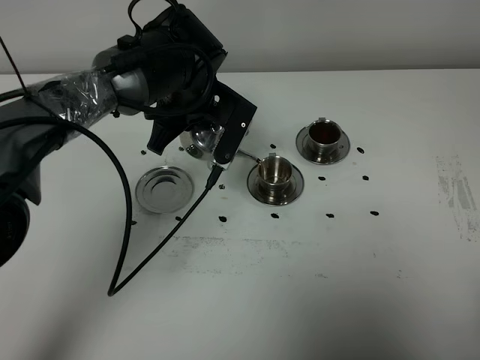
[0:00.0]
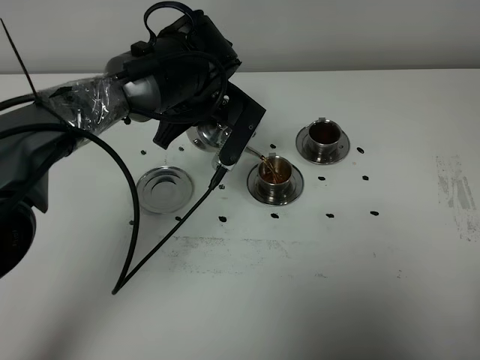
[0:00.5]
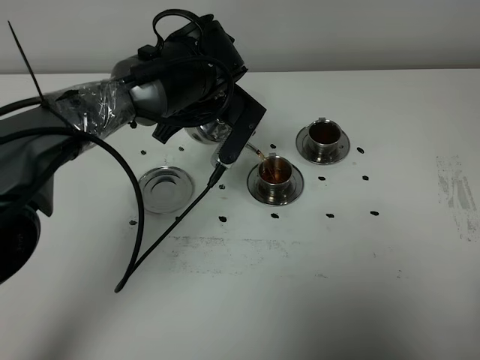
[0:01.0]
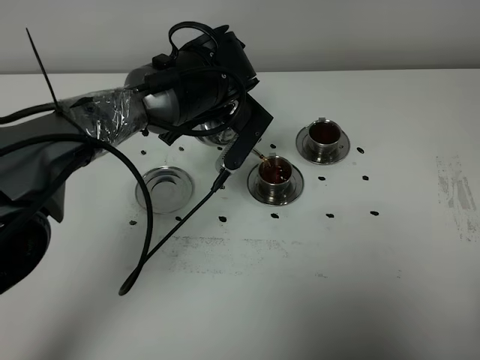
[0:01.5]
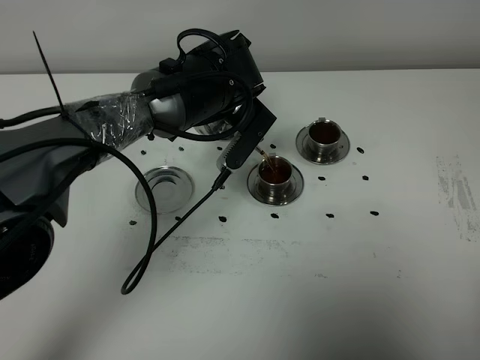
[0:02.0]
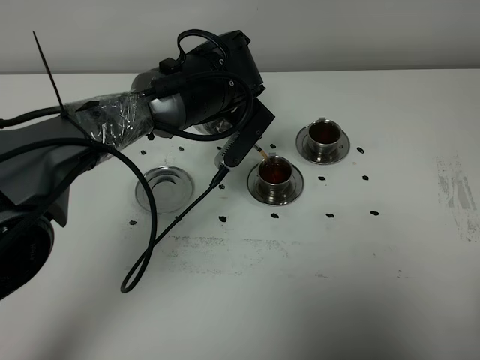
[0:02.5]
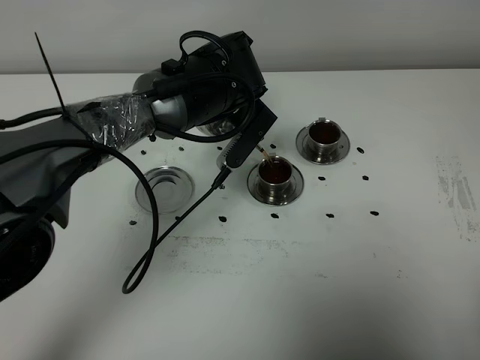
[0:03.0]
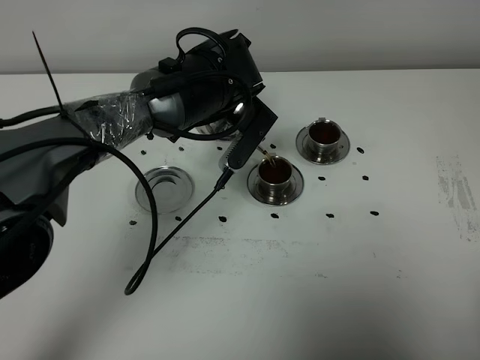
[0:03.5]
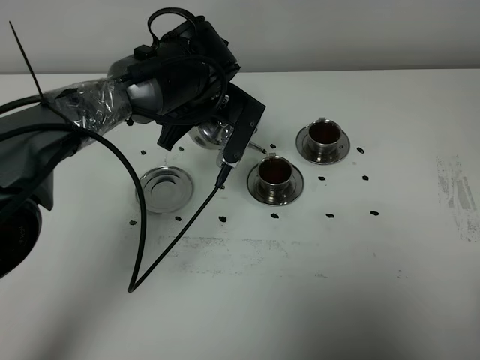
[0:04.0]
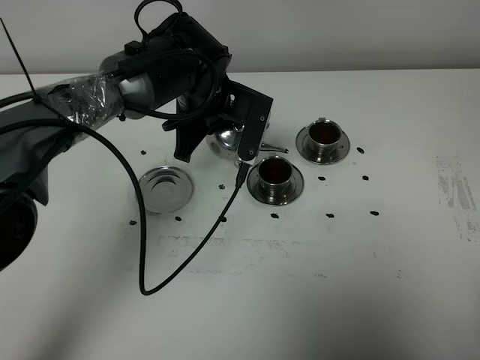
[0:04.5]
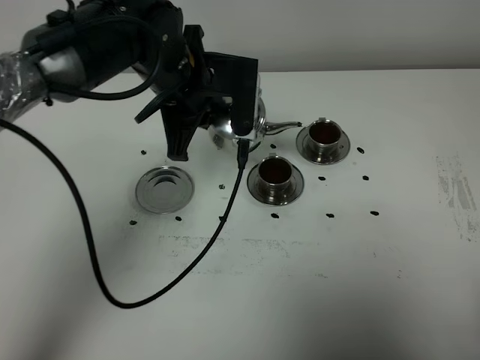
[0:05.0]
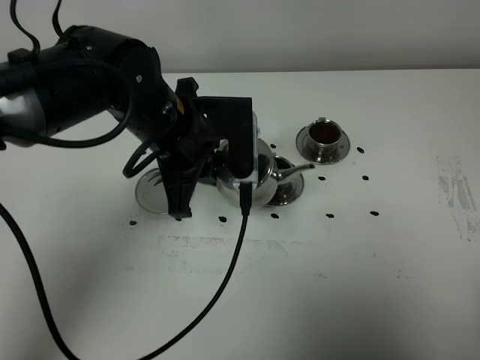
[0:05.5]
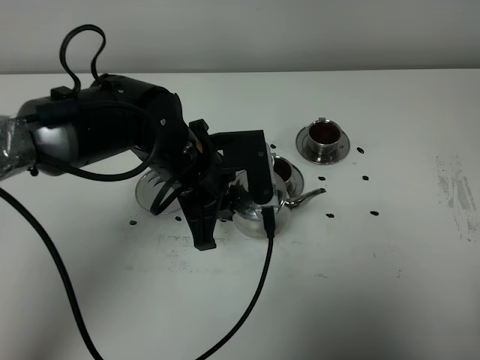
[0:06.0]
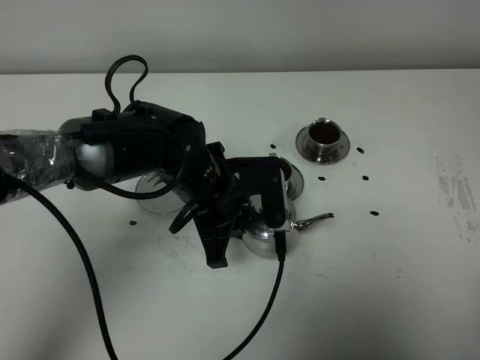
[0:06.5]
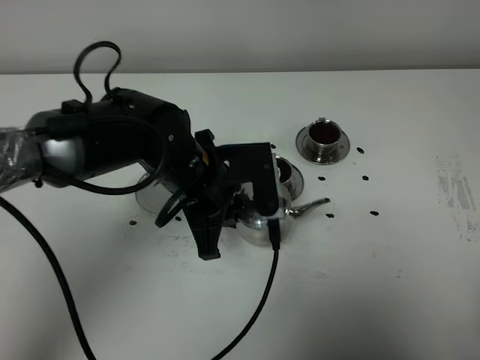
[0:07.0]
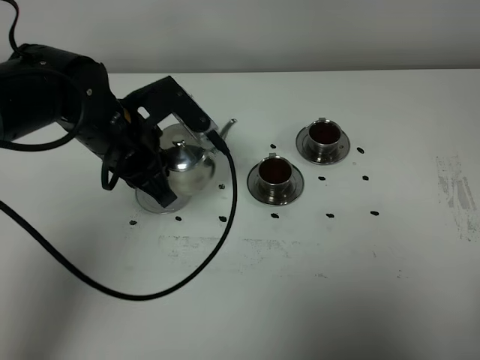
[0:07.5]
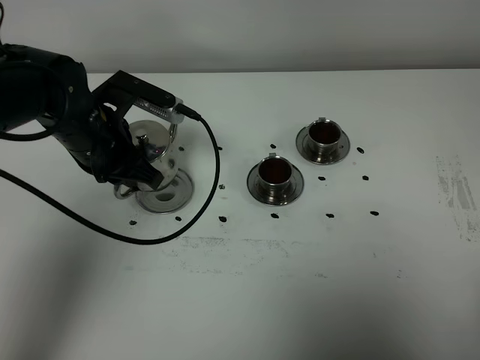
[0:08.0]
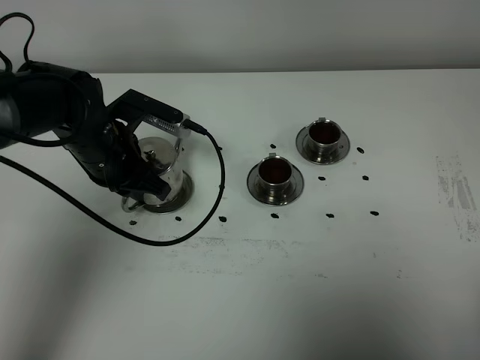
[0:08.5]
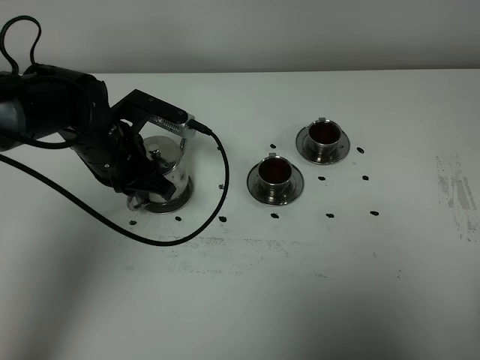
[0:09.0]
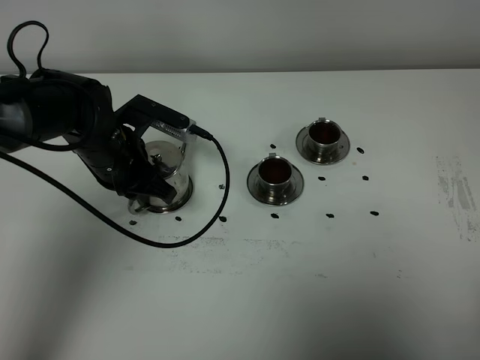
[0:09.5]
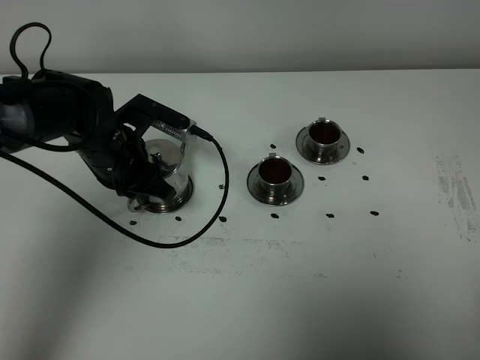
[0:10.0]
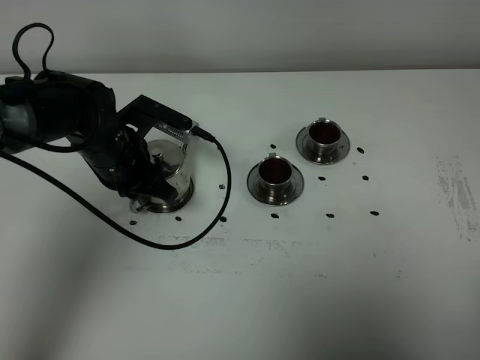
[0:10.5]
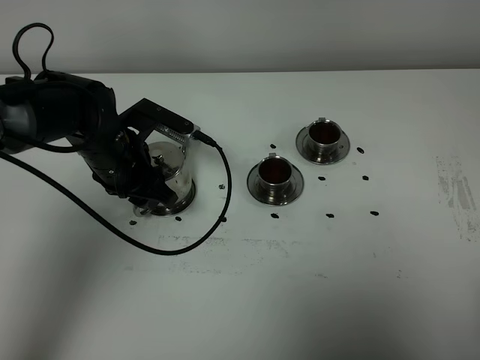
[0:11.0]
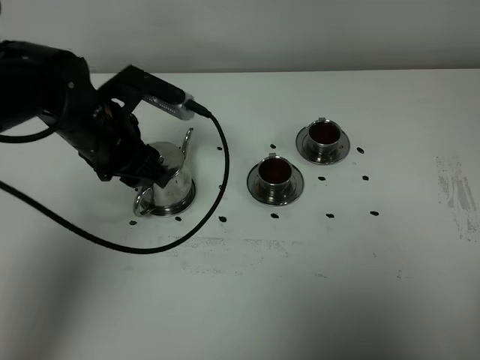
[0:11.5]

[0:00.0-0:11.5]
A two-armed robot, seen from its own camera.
Task of the whole recording: grasp the stainless steel teapot and pour the tea into the two stainless steel teacups one by one, put the stainless steel teapot back in its original place.
Step, 0:00.0 to 0:04.0: Pour tea into the teacup with the left gripper.
0:00.0 to 0:04.0: The grippers move only a little.
0:04.0 to 0:06.0: The left gripper heads backward, covering some 10 cm.
0:06.0 to 0:07.5: The left gripper travels to the left by roughly 10 cm.
0:07.5 to 0:09.5: The left gripper shifts about 5 cm downward.
0:09.5 to 0:11.5: The left gripper moves upward, approximately 5 cm, and opens its fingers.

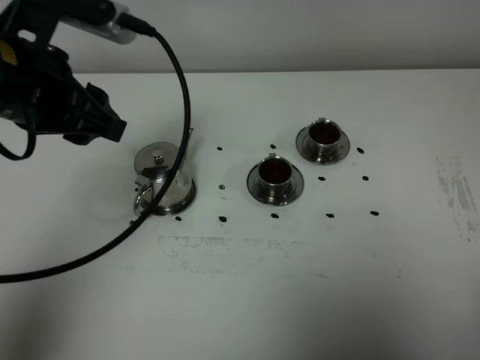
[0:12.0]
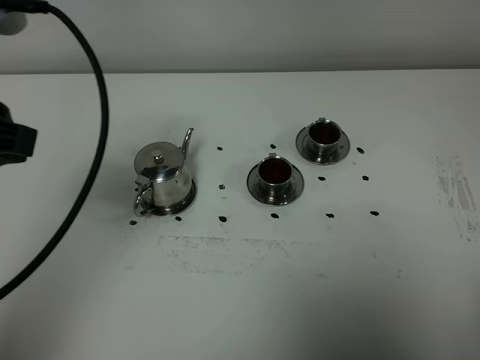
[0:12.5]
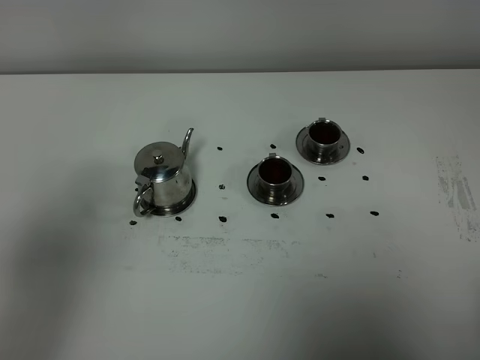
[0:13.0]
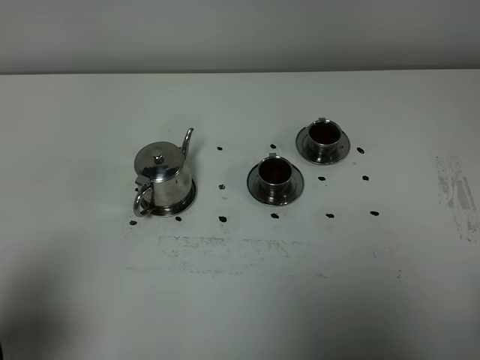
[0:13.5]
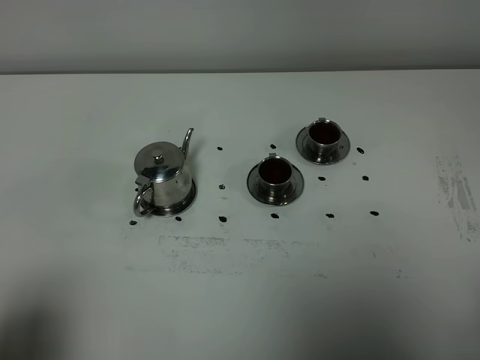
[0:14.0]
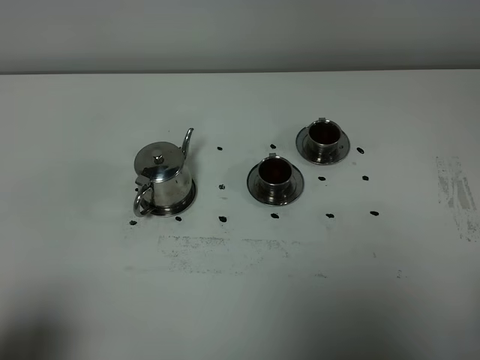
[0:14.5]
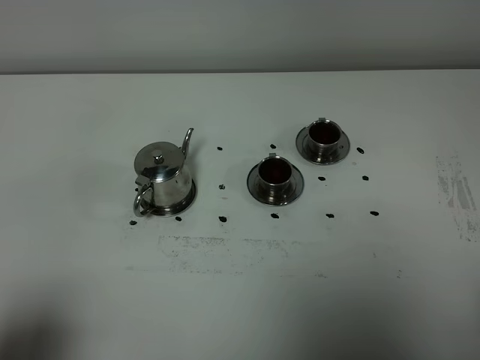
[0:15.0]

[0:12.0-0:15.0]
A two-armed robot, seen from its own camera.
Task of the whole recording: grasp the stainless steel teapot and pour the tea into the two stainless steel teacups one by one, put the stainless steel teapot back in its original place.
0:12.0 to 0:13.5: The left gripper heads backward and to the left, covering about 25 cm.
0:13.5 to 0:15.0: The left gripper shifts about 5 cm backward.
